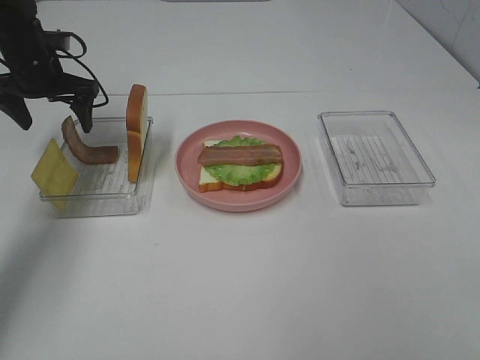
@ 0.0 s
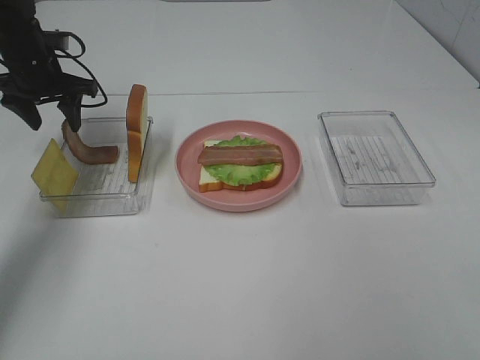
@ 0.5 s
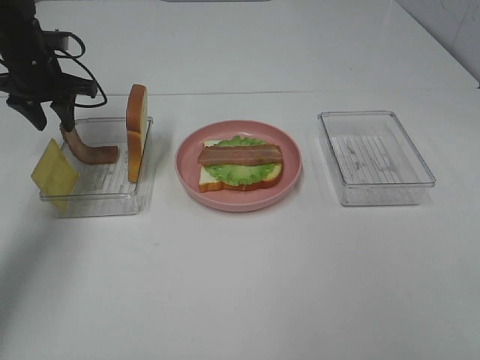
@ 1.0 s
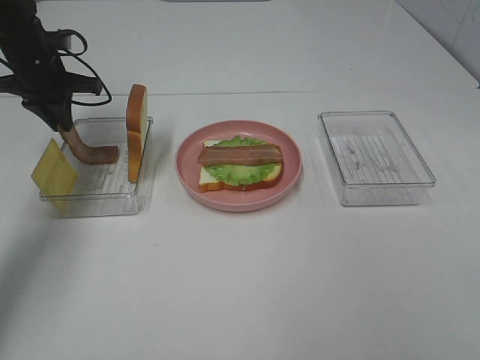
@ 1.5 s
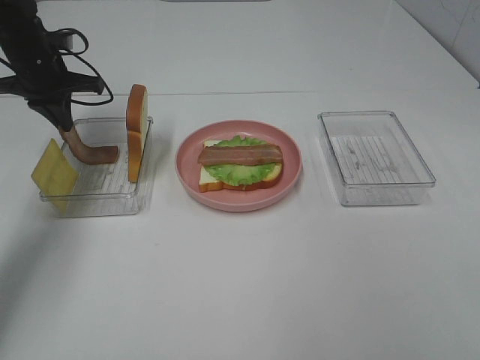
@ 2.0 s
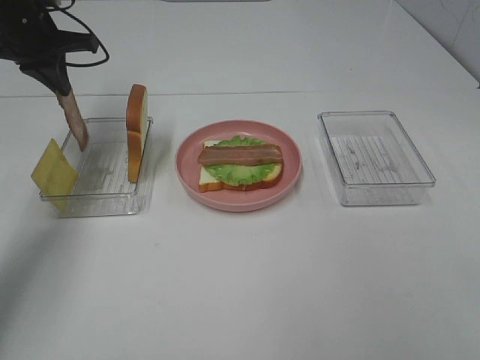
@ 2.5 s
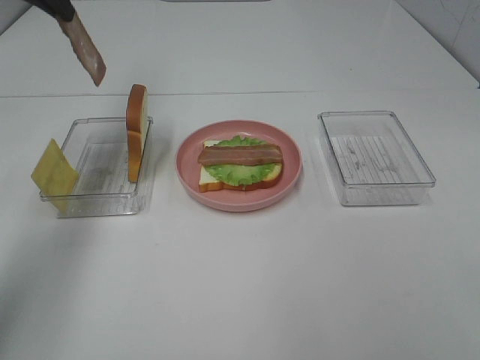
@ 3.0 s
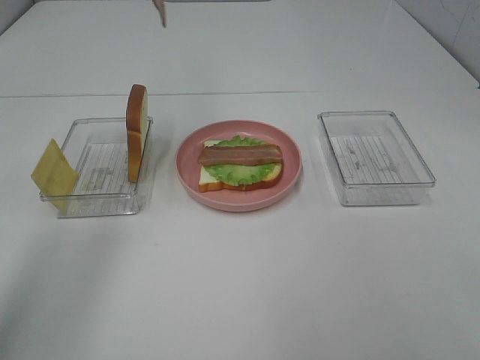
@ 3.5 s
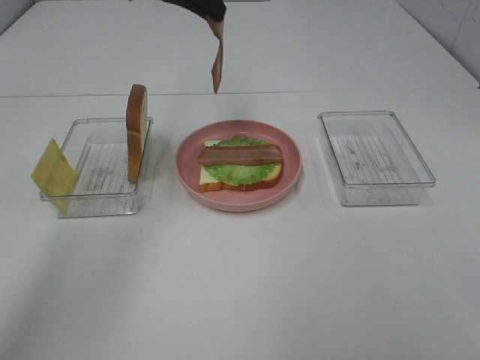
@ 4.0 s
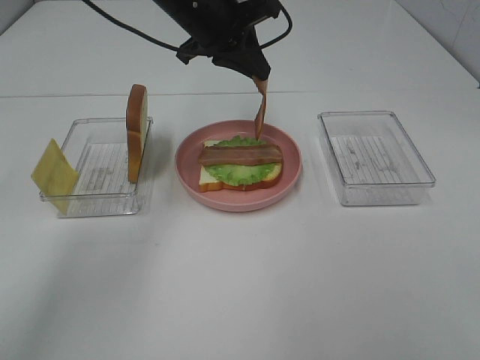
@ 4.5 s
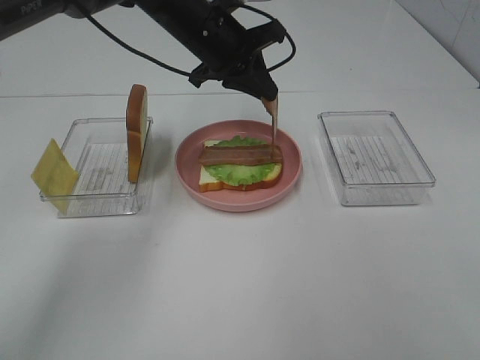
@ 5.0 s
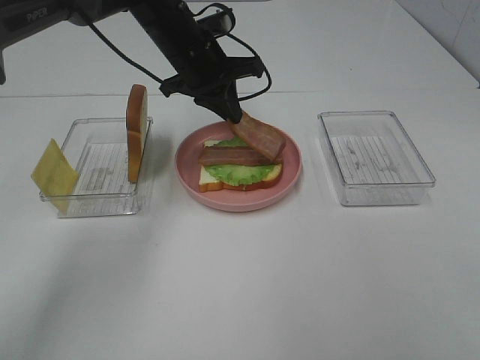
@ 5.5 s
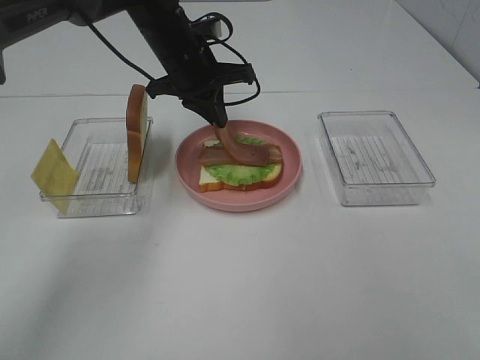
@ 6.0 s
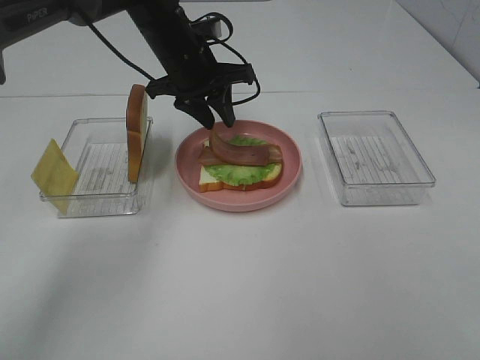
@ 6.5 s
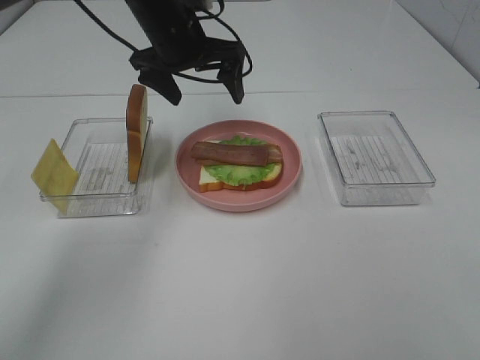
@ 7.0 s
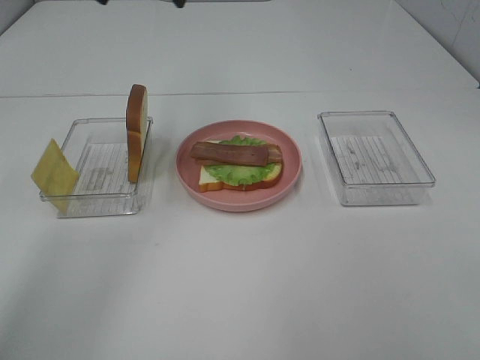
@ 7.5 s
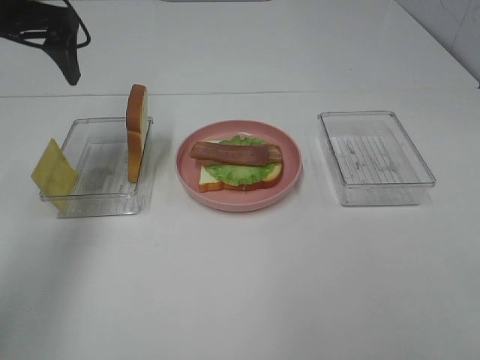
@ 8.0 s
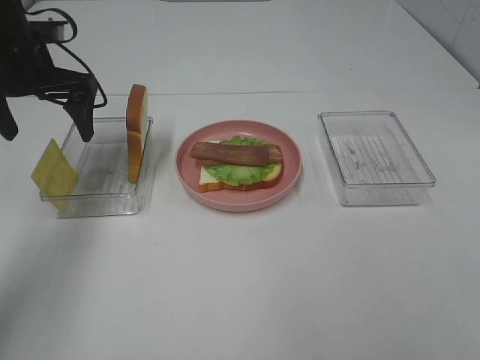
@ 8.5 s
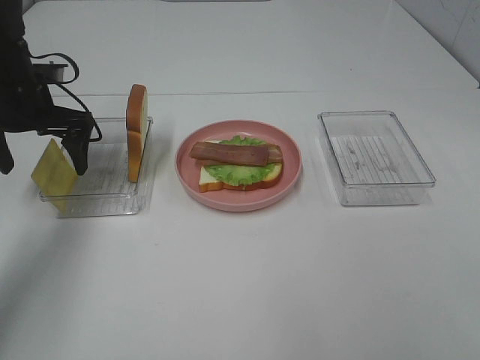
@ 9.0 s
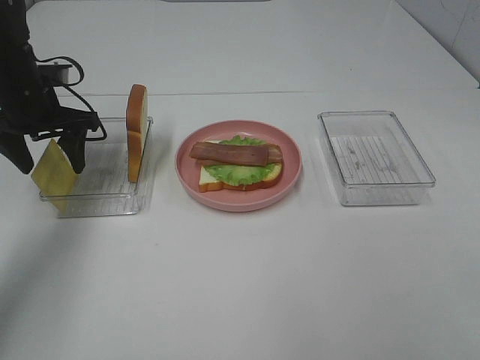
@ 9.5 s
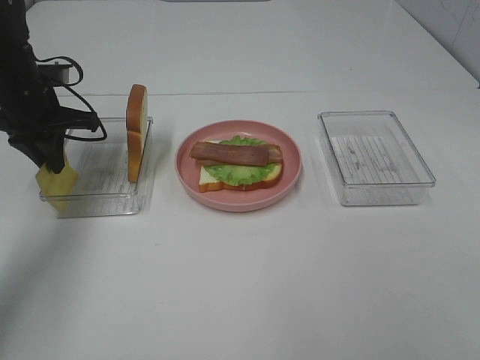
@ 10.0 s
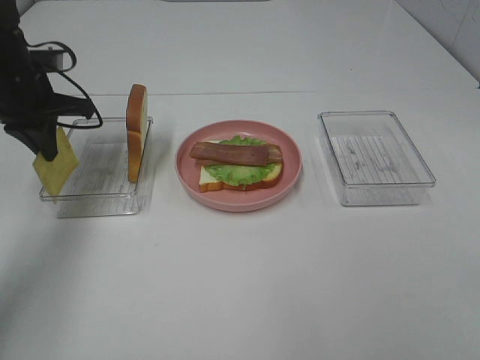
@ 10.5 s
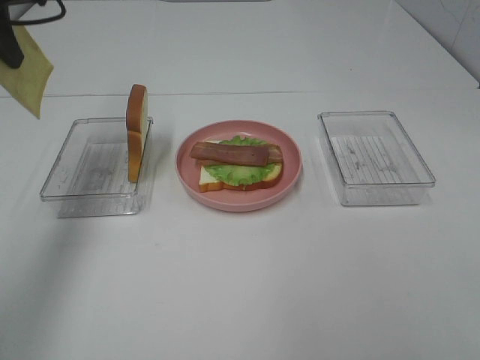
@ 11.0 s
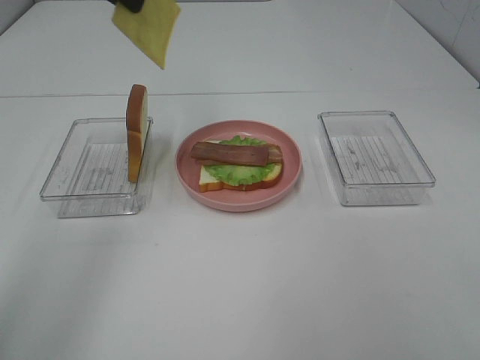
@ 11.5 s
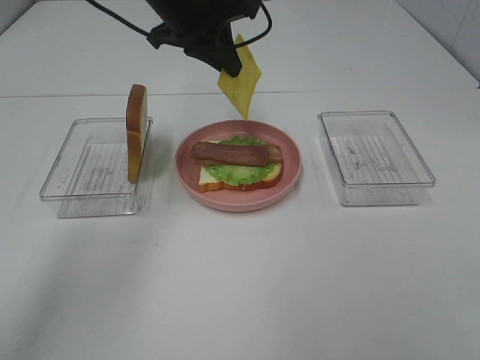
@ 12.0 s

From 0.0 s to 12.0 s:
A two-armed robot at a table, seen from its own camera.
Task of the whole recording: Make sandwiches.
Step, from 0.0 s to 2.0 s: Left hand:grab the bacon.
Step, from 2.5 s to 6.5 s: Left hand:place bacon on bacon.
Step, from 7.0 s to 10.0 s: Left hand:grab the cheese slice.
From 0.0 s to 2.0 s: The left gripper closes its fingers.
From 2.0 s to 4.0 s: The left gripper moves to the right and upward, approximately 25 cm.
From 4.0 s to 6.0 s: The left gripper shifts about 15 cm downward.
From 6.0 s to 8.0 s: The left gripper travels to the left and upward by roughly 20 cm, and opens its fingers.
From 8.0 s to 10.0 s: The left gripper is displaced downward by approximately 15 cm, and closes up.
From 10.0 s to 12.0 s: The left gripper moves to the right and upward, about 20 cm.

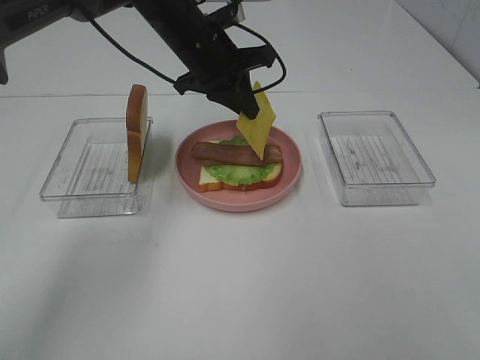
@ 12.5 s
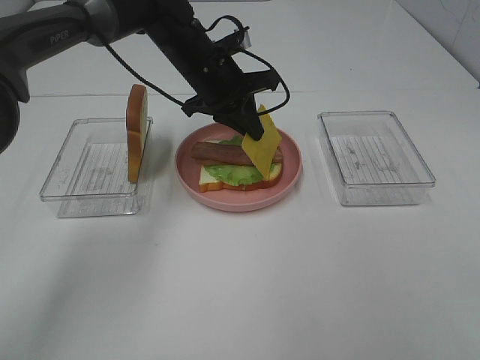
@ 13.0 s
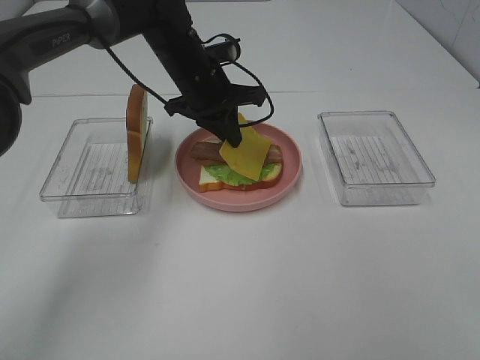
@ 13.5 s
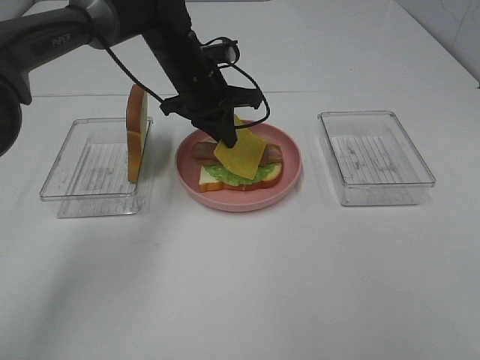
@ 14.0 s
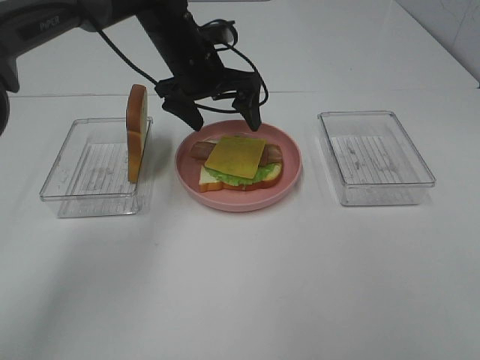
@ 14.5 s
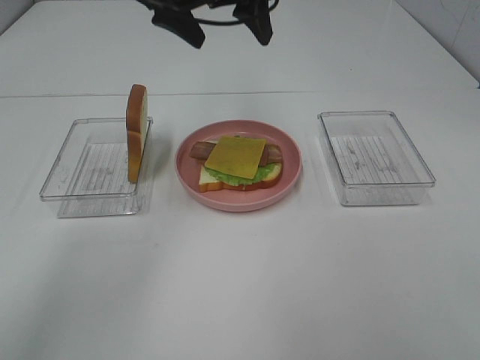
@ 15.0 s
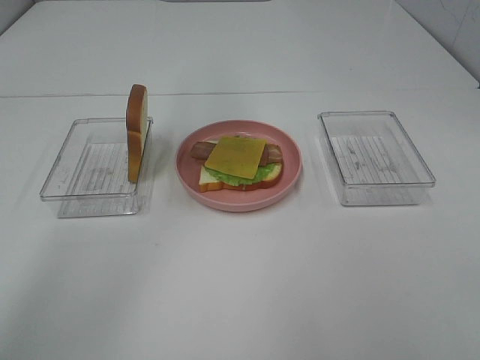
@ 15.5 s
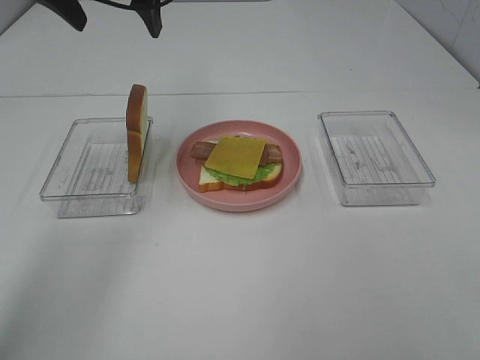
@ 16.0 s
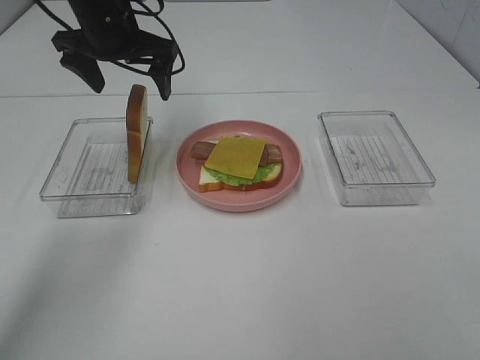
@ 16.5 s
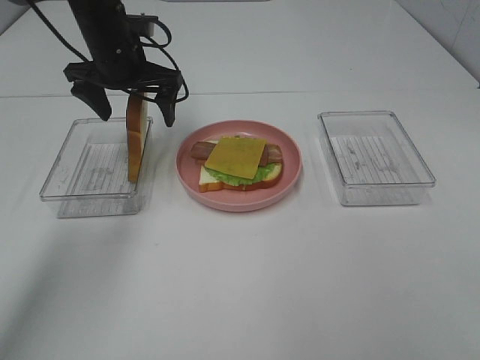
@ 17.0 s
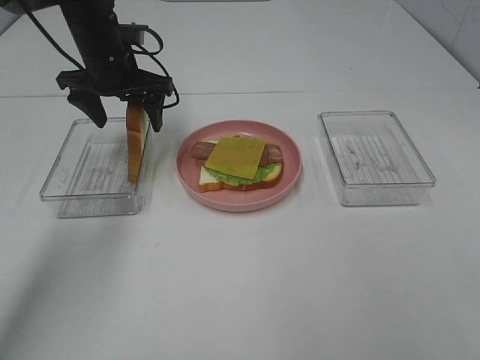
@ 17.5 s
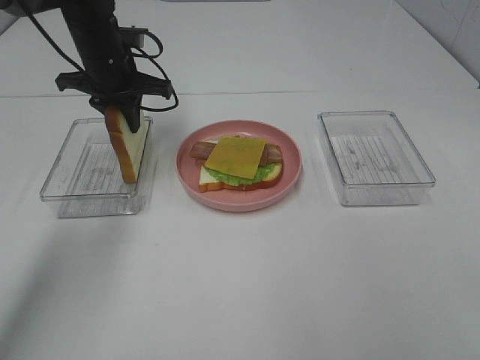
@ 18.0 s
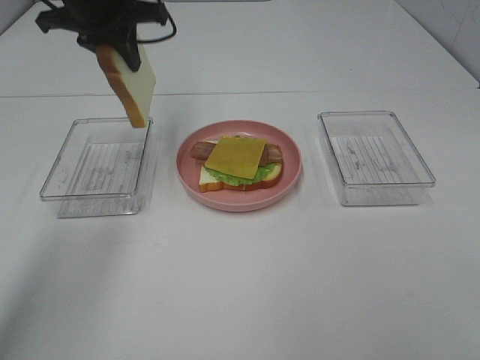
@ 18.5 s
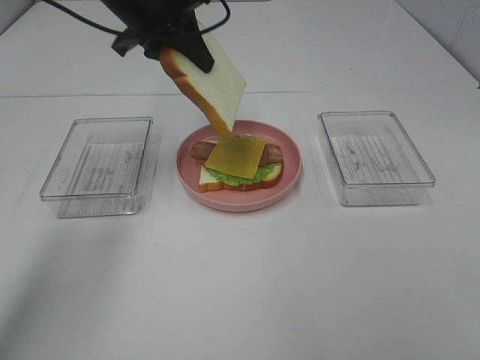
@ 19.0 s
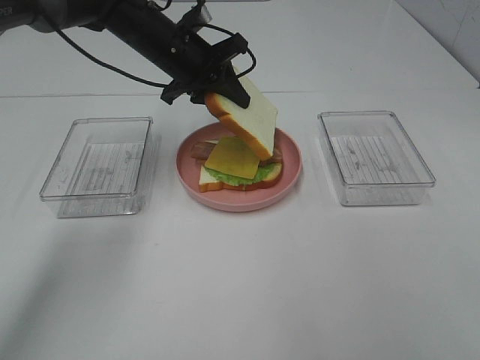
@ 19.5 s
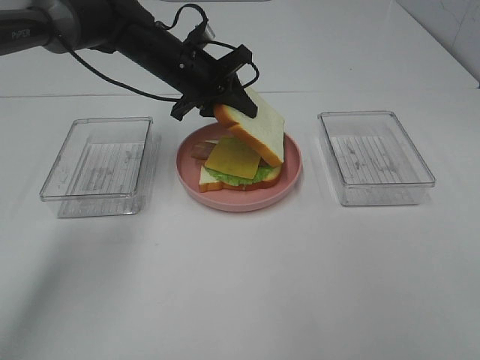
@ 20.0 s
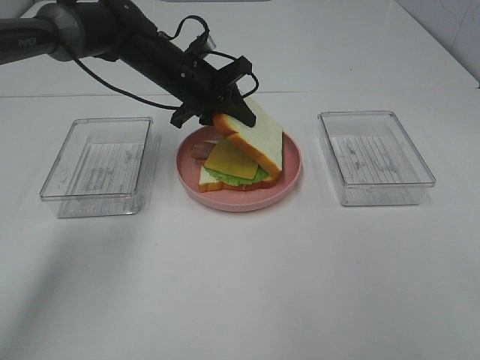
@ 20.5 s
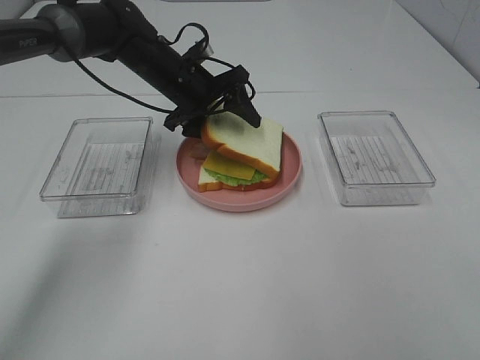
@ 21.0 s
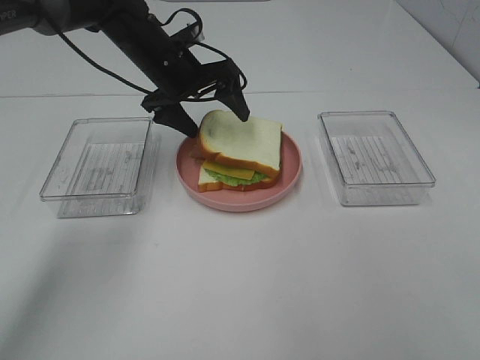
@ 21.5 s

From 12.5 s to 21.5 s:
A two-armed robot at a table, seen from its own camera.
Task of the whole recording: Make sandwiches.
Step, from 12.5 s to 14.5 s: Left hand:place the cheese slice on top of the bacon.
Step, from 15.0 s to 18.0 s: Left hand:grab the bread slice.
From 12.5 s to 14.5 s: The left gripper opens up.
From 14.5 s to 17.0 s: The left gripper heads to the left, covering roughly 10 cm, and reaches about 15 cm upward, then returns.
From 17.0 s to 19.5 s: The left gripper travels to the right by roughly 5 cm, reaches approximately 10 cm upward, then returns, and closes.
From 19.5 s to 21.5 s: The left gripper opens.

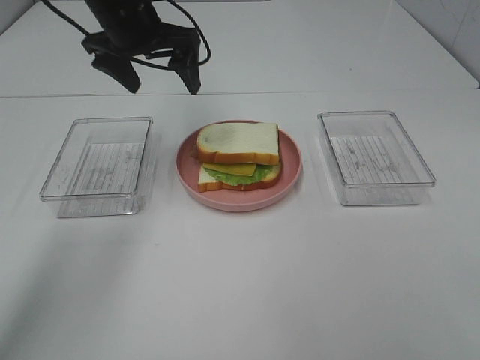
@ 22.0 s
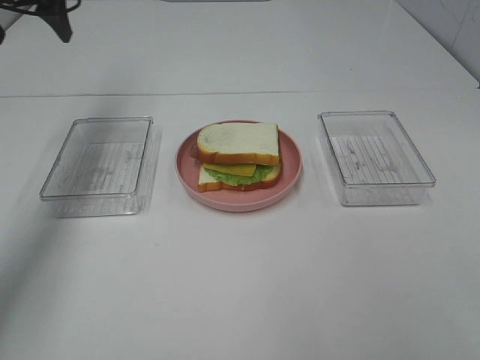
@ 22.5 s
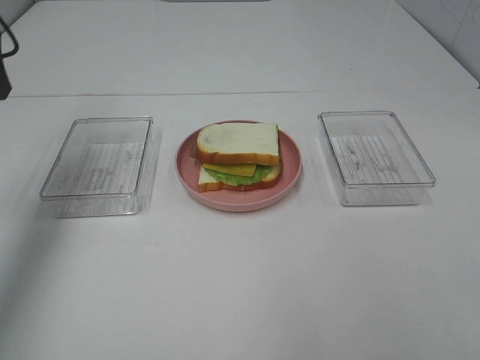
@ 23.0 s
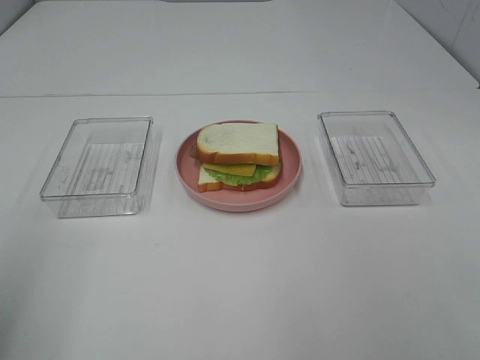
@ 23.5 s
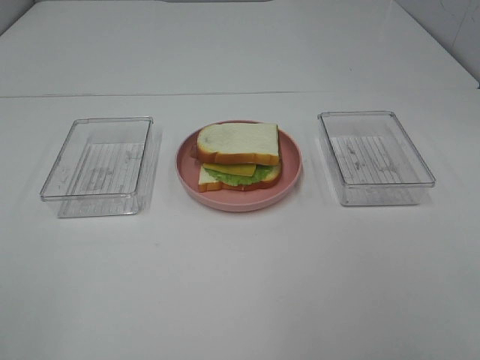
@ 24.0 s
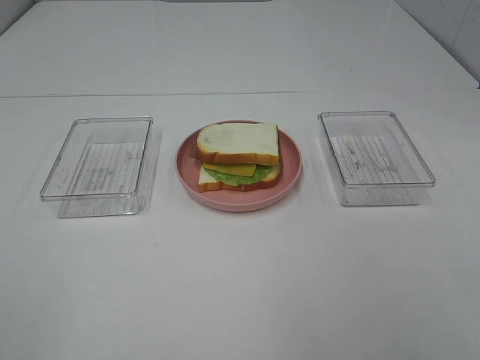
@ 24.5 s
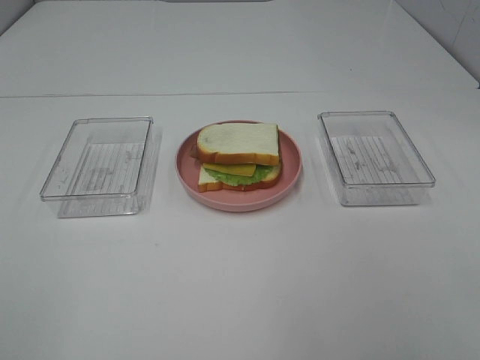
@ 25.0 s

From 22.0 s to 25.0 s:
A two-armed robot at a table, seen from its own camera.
Task of the whole recording: Make sandwiches.
From 22.0 s to 23.5 s: The left gripper moves backward and to the left, about 40 cm.
